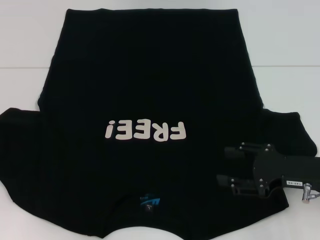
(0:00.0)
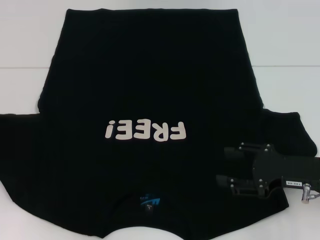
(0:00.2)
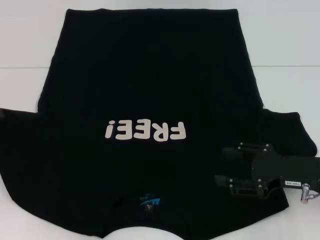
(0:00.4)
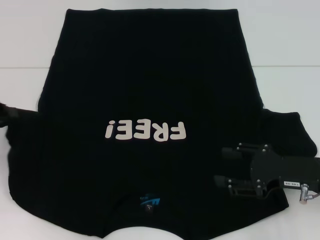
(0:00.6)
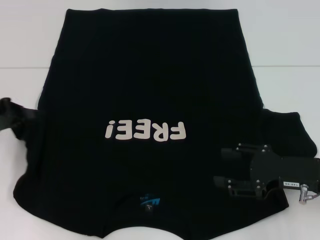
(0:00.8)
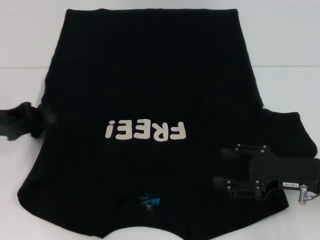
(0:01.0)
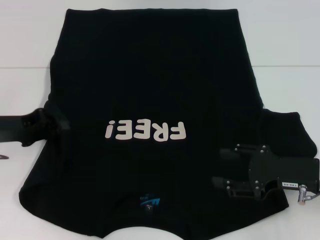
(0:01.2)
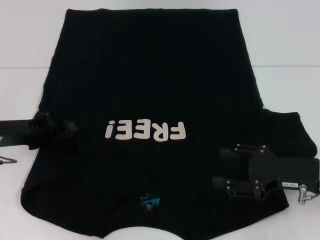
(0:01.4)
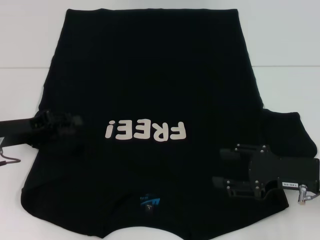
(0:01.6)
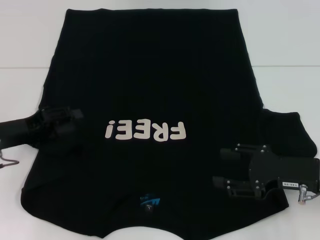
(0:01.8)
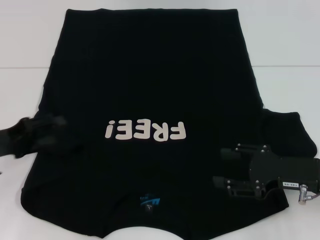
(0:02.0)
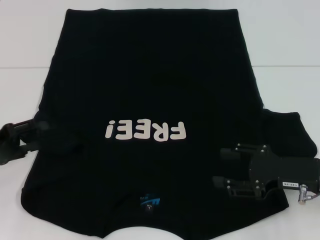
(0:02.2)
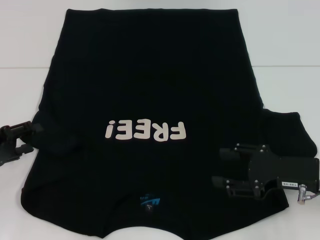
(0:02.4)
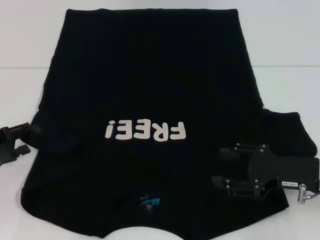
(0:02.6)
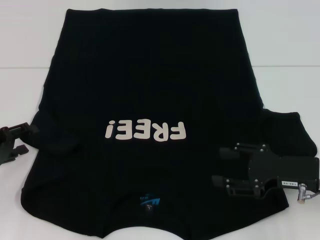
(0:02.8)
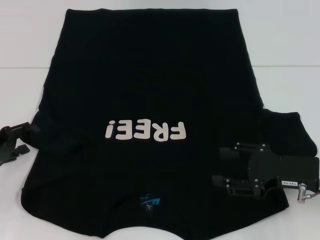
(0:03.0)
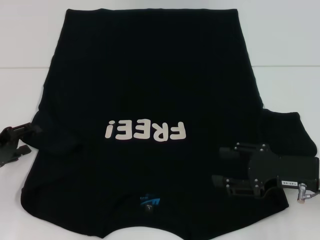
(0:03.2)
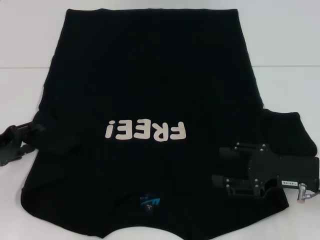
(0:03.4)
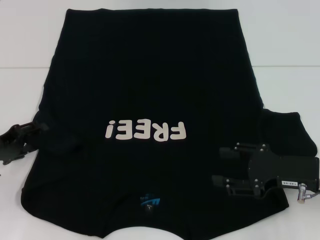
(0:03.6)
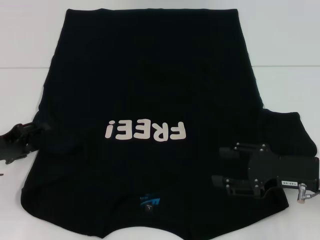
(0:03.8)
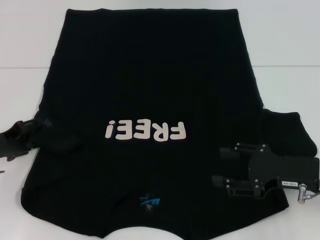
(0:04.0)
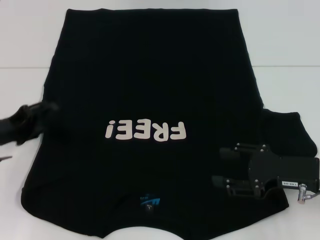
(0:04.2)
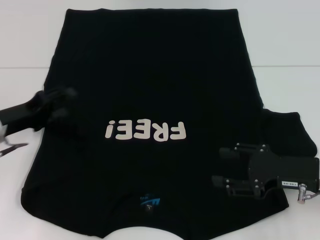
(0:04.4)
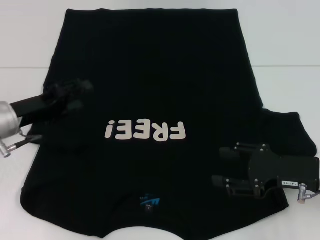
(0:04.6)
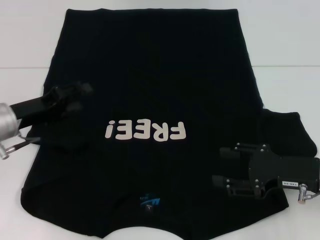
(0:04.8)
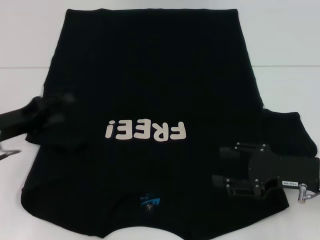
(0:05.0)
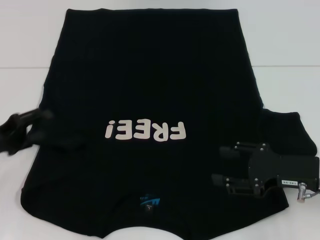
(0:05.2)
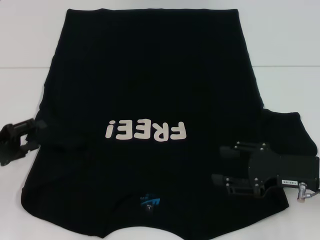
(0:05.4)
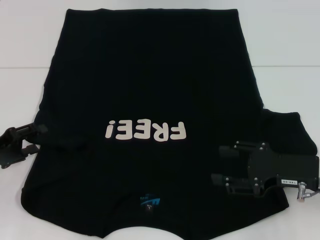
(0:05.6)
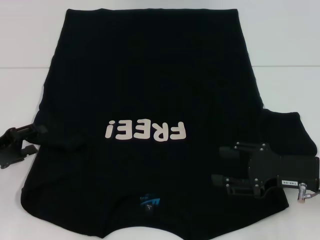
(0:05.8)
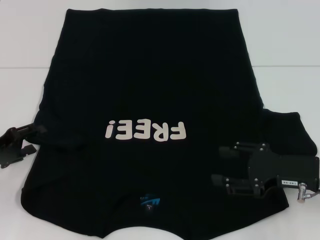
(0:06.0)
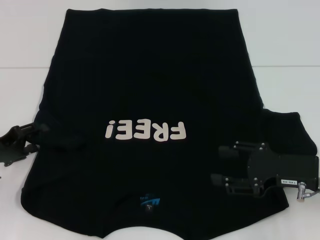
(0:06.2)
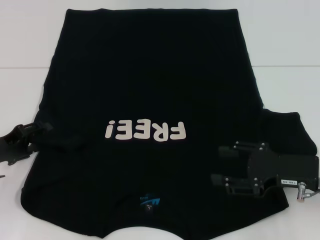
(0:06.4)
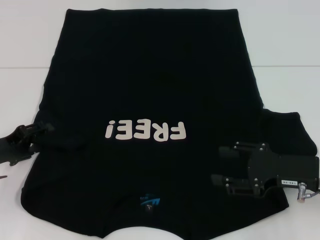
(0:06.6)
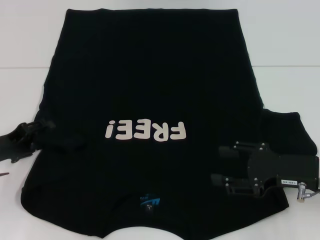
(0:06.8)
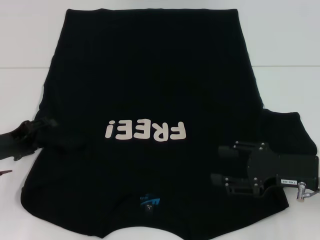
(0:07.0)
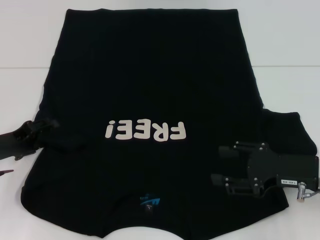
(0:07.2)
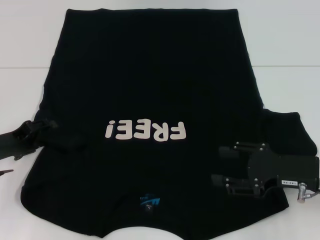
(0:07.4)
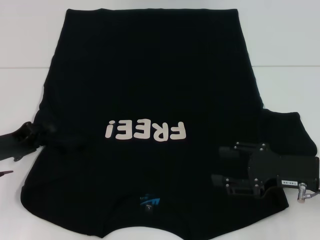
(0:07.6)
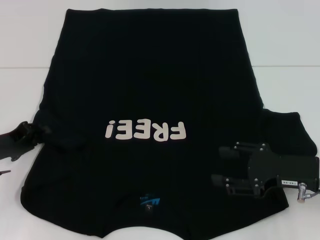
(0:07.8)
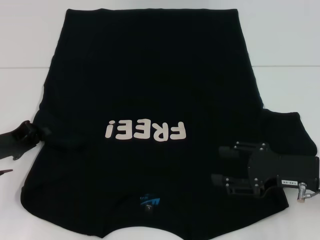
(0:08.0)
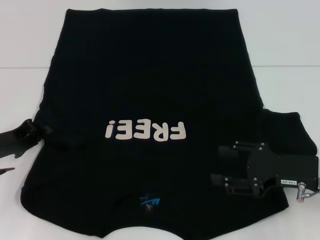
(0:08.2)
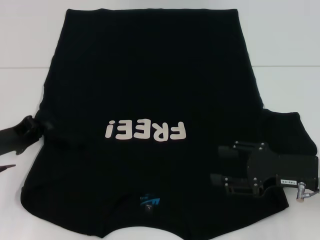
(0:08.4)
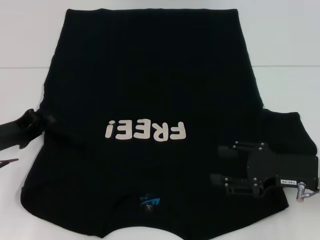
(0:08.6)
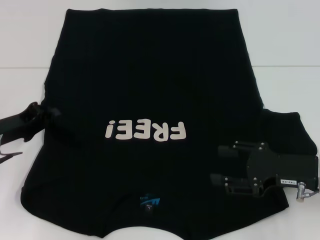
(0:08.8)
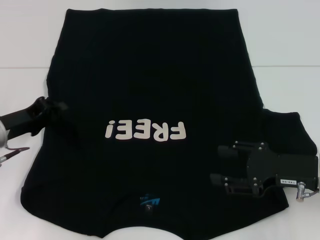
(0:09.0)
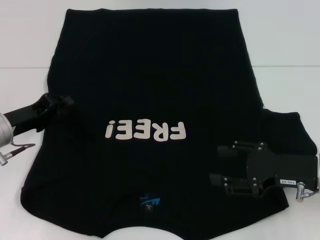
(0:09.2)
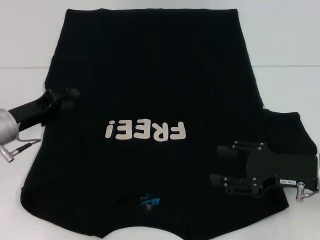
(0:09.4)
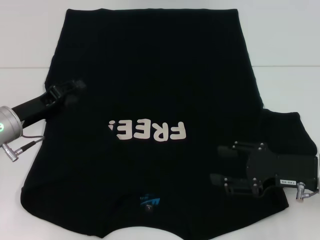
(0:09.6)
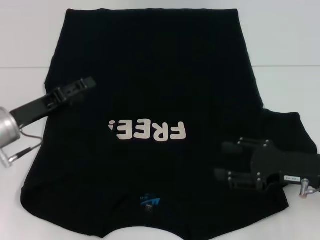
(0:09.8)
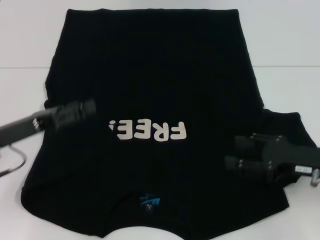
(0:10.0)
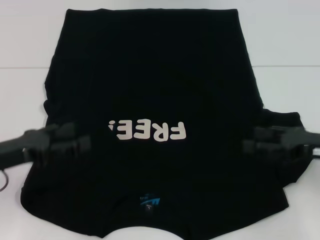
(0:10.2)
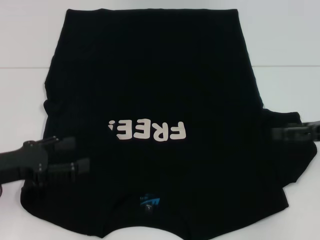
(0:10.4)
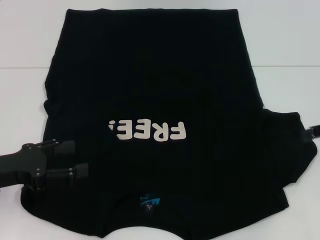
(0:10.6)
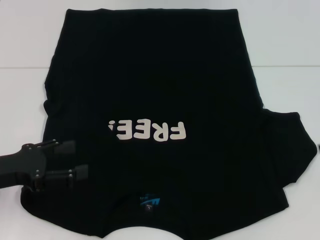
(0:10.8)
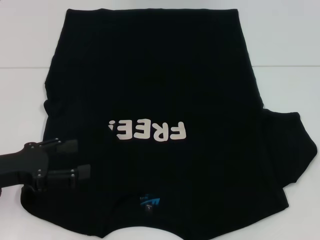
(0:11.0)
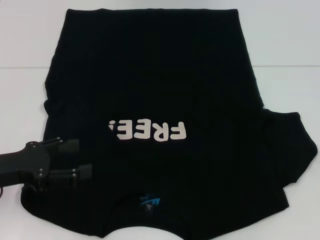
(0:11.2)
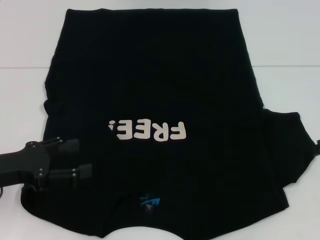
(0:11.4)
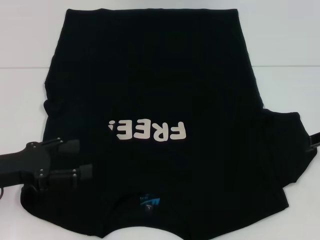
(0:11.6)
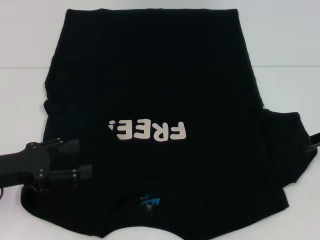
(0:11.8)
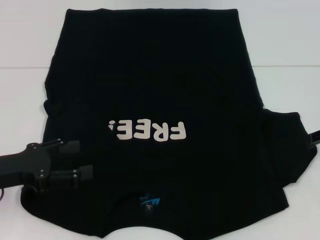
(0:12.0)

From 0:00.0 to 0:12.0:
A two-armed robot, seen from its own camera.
Step, from 0:00.0 to 0:10.2: Fold the bottom left sleeve with your left hand.
From 0:00.0 to 0:01.6: The left gripper moves to the right, some 10 cm.
From 0:01.6 to 0:03.0: The left gripper is displaced to the left by about 5 cm, and opens.
From 0:03.0 to 0:04.4: The left gripper goes roughly 5 cm to the right.
From 0:04.4 to 0:06.0: The left gripper shifts by roughly 5 cm.
From 0:06.0 to 0:07.6: There are only small adjustments of the grippers.
From 0:07.6 to 0:09.0: The left gripper closes.
From 0:09.0 to 0:10.4: The right gripper travels to the right and upward by some 10 cm. The left gripper shifts about 10 cm backward, and opens up.

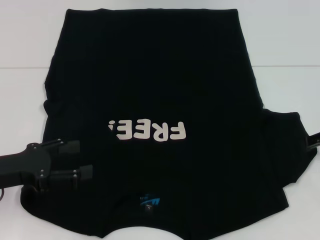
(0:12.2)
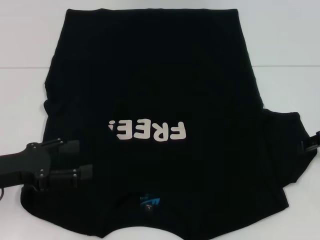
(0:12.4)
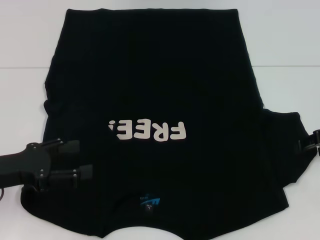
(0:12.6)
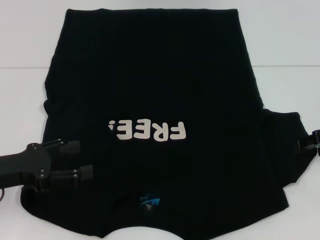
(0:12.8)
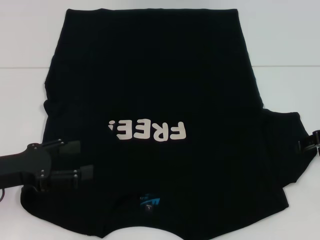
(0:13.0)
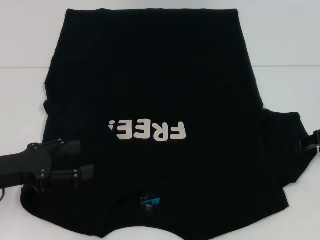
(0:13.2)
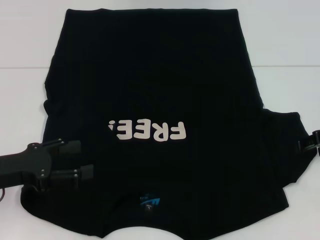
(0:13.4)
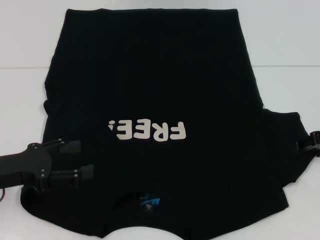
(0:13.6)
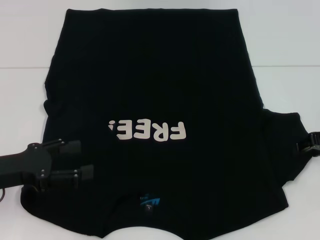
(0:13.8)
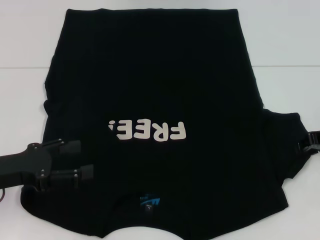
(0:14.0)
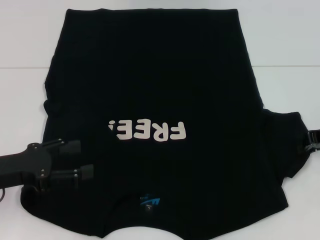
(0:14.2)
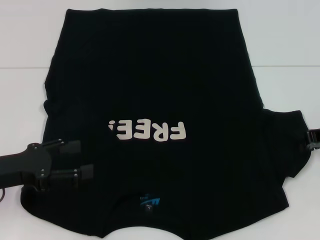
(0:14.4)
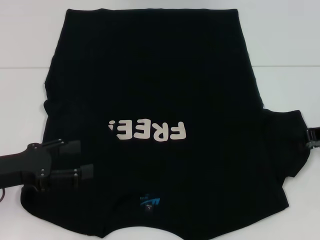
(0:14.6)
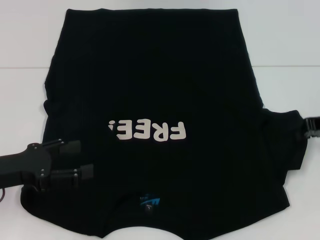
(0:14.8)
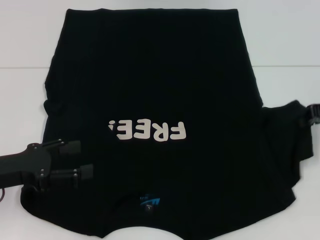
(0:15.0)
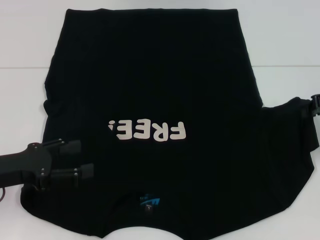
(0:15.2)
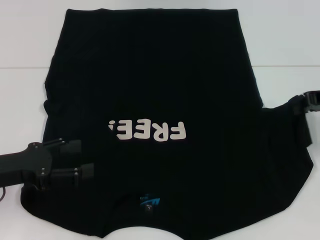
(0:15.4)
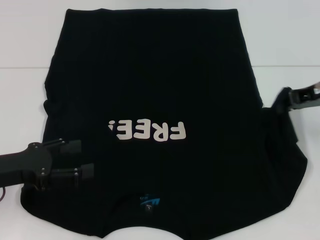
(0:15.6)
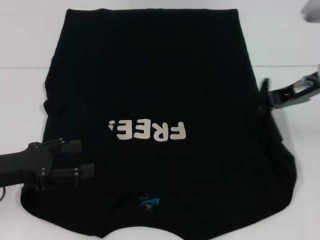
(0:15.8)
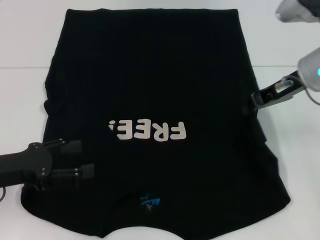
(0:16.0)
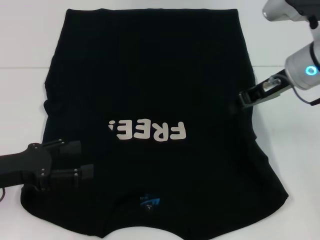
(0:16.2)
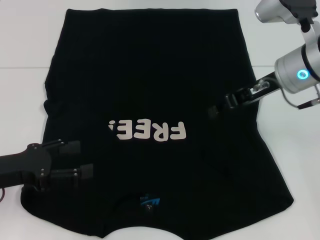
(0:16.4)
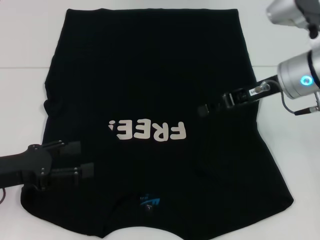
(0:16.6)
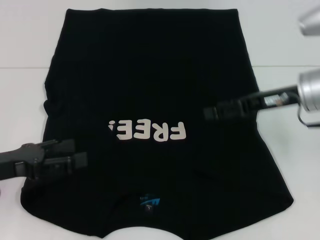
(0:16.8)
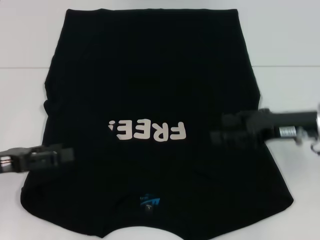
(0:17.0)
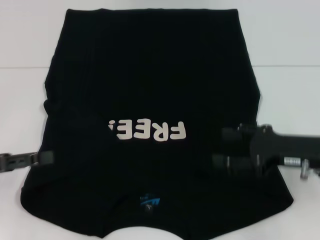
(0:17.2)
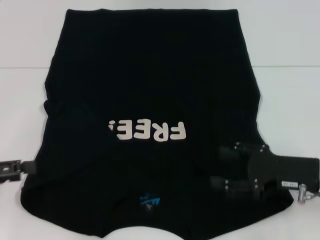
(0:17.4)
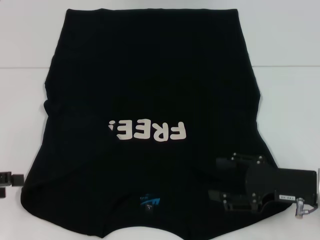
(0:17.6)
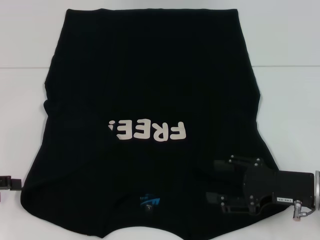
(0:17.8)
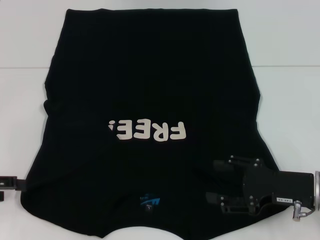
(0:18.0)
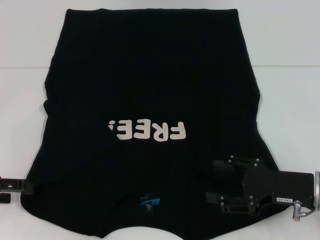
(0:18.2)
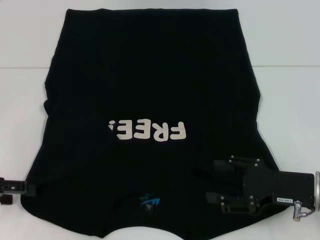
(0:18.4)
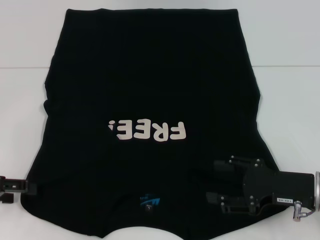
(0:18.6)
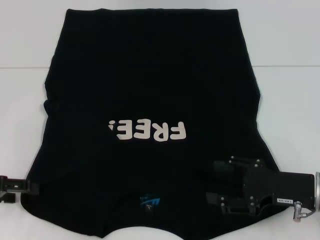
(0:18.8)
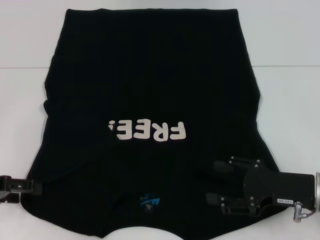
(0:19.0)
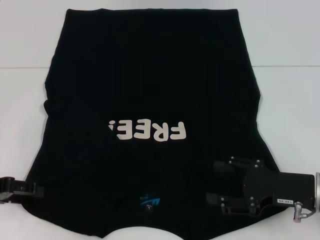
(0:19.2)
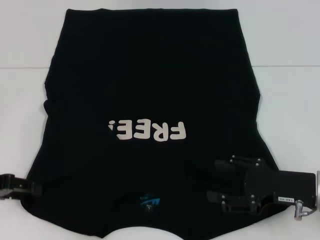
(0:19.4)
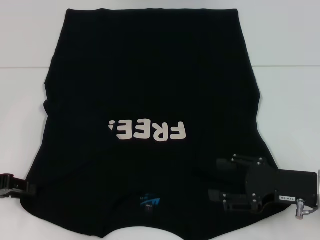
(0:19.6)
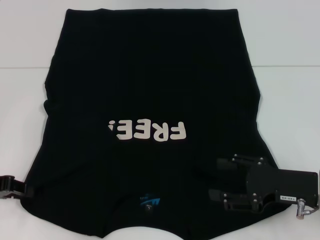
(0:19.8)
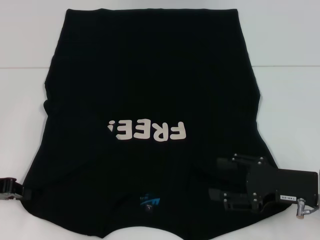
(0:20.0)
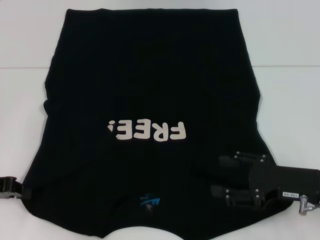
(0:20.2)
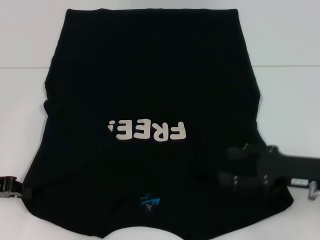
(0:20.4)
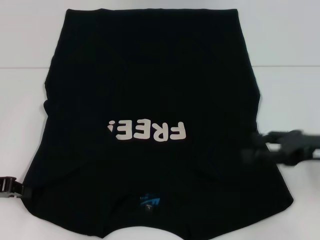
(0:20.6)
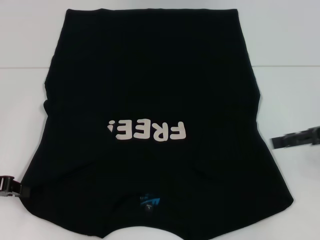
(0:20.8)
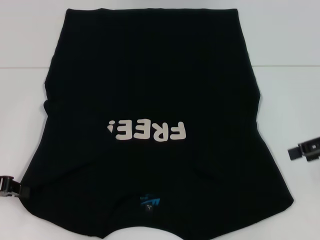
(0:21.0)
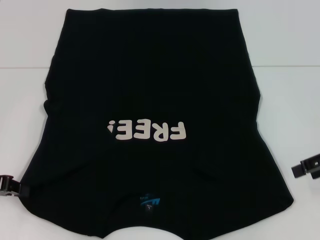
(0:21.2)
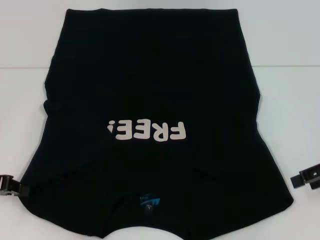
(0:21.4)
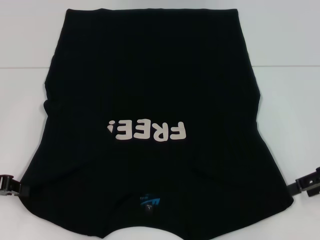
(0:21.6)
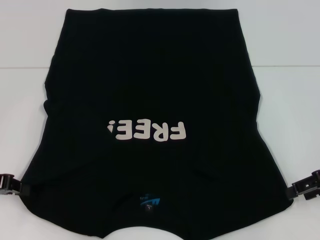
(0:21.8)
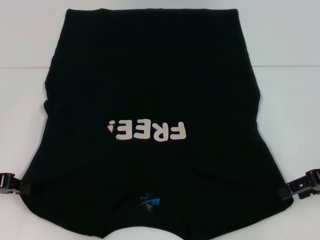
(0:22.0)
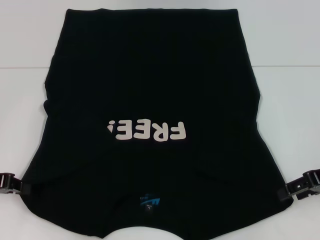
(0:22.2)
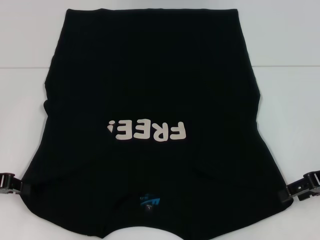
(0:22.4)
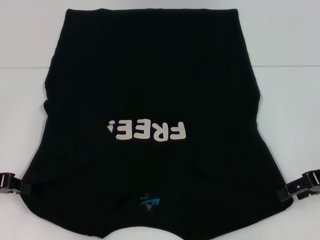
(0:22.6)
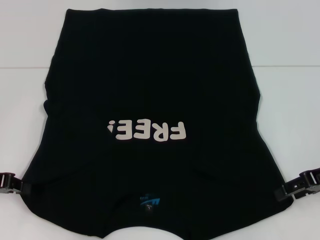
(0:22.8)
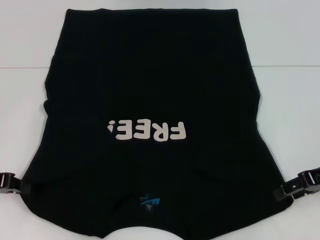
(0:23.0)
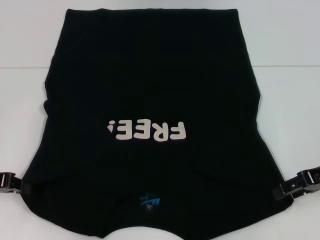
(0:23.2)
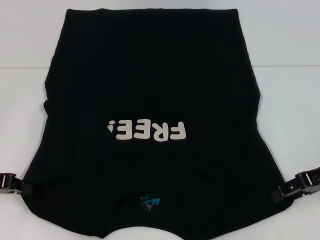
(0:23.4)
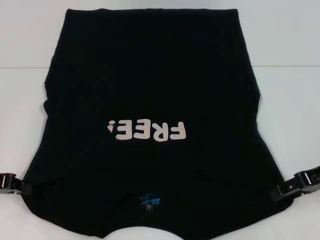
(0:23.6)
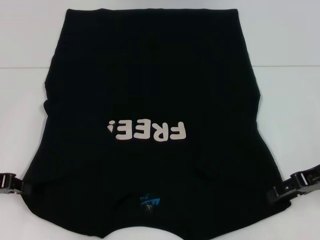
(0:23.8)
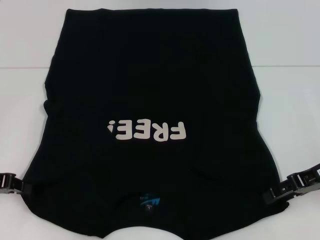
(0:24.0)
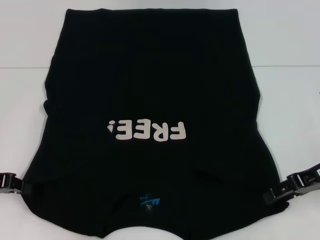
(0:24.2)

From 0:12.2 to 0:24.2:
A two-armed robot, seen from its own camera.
Step, from 0:12.2 to 0:16.6: Fold the bottom right sleeve with your right hand.
Step, from 0:16.8 to 0:21.0: Grab the bottom left corner with your left hand.
From 0:13.8 to 0:15.2: The right gripper changes place by approximately 5 cm, and closes.
From 0:15.2 to 0:16.6: The right gripper heads to the left, covering about 10 cm.
From 0:16.6 to 0:18.2: The left gripper is displaced to the left by about 5 cm. Meanwhile the right gripper is displaced backward and downward by about 20 cm, and opens its fingers.
From 0:19.8 to 0:21.2: The left gripper closes its fingers. Meanwhile the right gripper travels upward, to the right and forward by approximately 15 cm.
From 0:21.2 to 0:22.6: There are only small adjustments of the grippers.
From 0:22.6 to 0:24.2: The grippers make only small movements.
